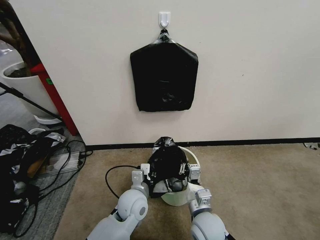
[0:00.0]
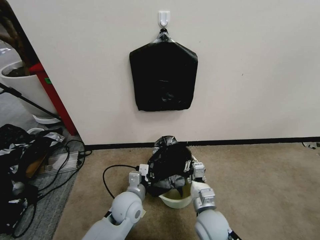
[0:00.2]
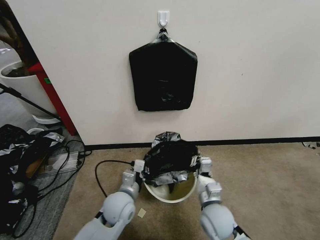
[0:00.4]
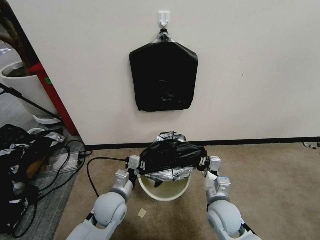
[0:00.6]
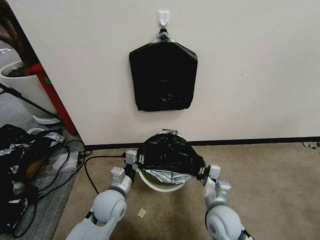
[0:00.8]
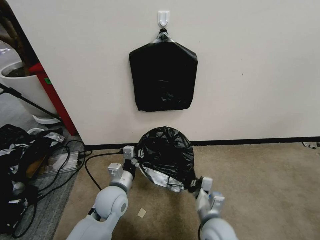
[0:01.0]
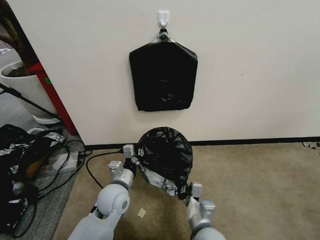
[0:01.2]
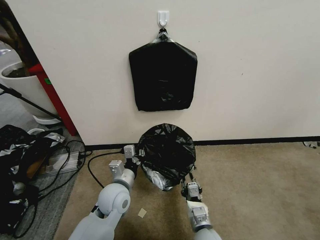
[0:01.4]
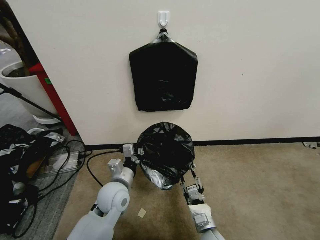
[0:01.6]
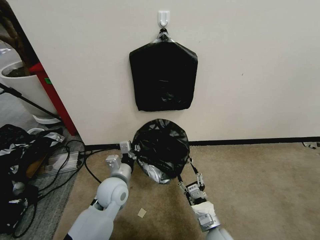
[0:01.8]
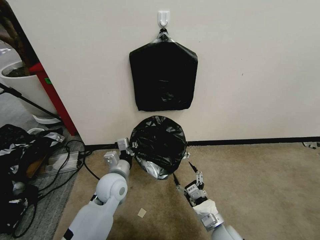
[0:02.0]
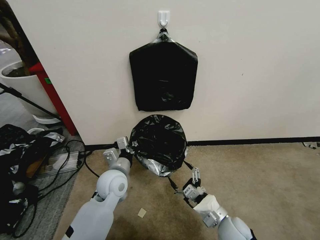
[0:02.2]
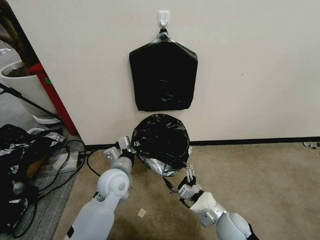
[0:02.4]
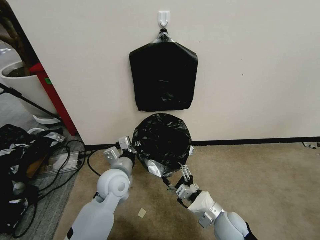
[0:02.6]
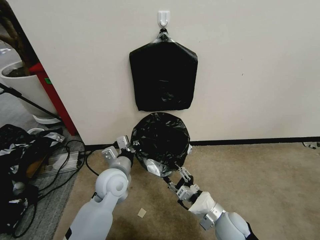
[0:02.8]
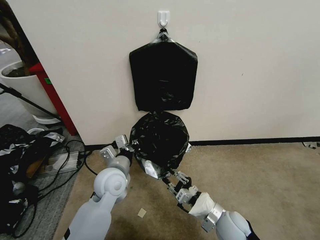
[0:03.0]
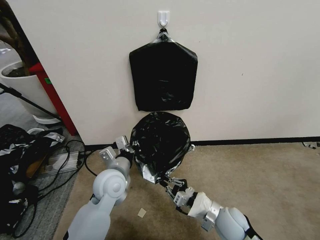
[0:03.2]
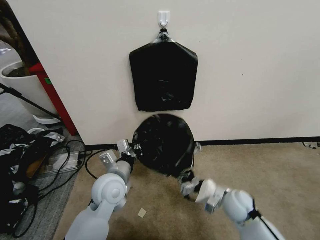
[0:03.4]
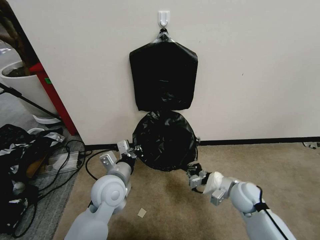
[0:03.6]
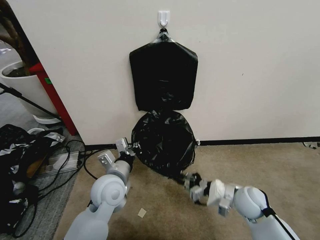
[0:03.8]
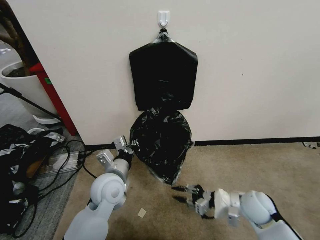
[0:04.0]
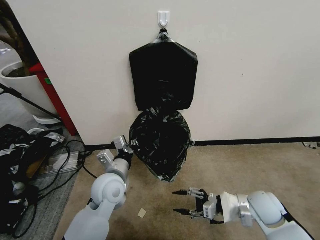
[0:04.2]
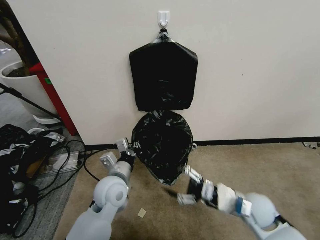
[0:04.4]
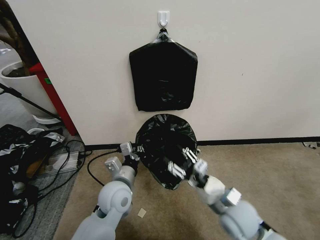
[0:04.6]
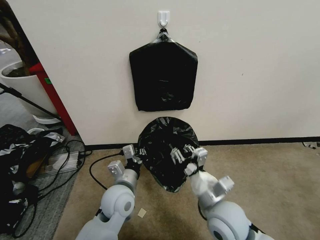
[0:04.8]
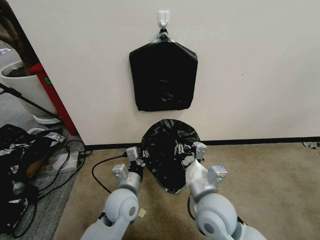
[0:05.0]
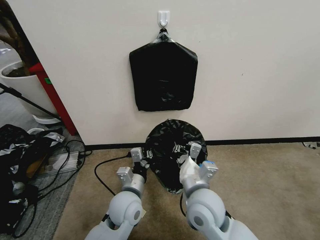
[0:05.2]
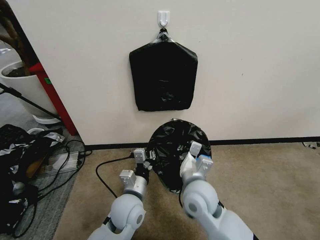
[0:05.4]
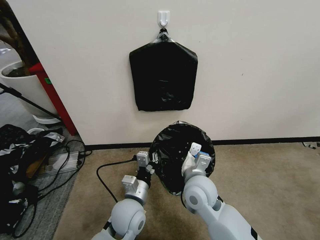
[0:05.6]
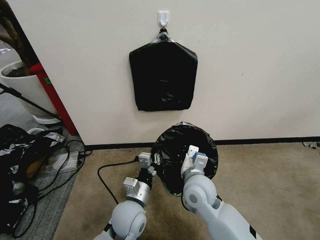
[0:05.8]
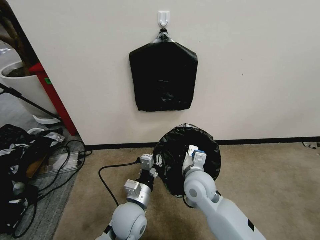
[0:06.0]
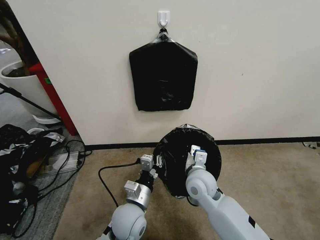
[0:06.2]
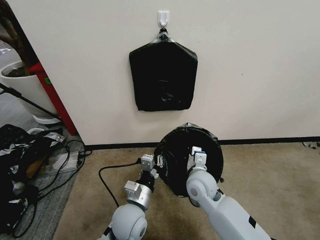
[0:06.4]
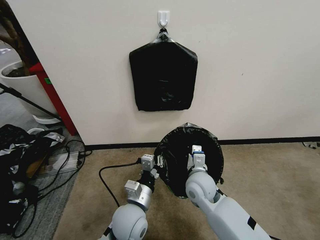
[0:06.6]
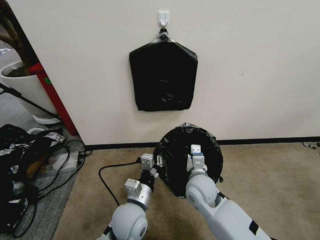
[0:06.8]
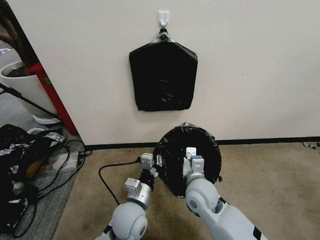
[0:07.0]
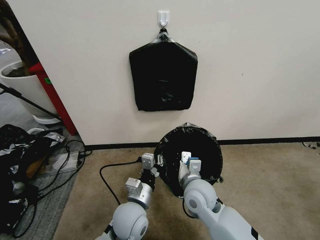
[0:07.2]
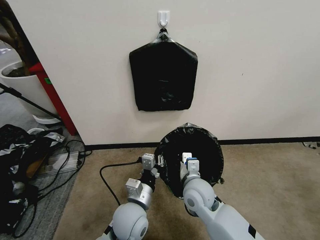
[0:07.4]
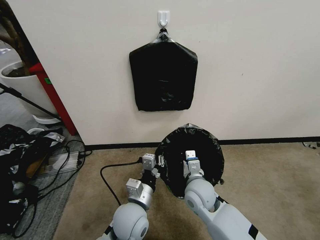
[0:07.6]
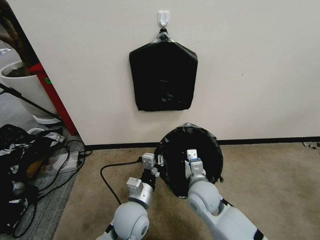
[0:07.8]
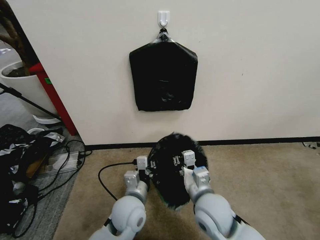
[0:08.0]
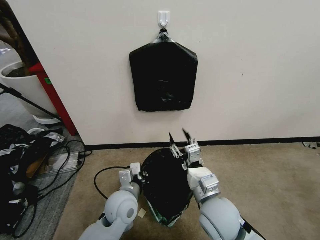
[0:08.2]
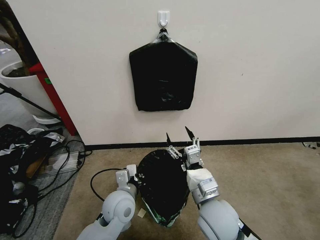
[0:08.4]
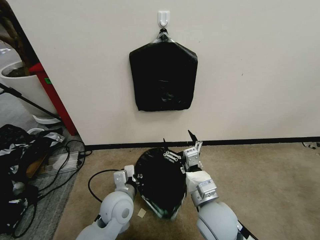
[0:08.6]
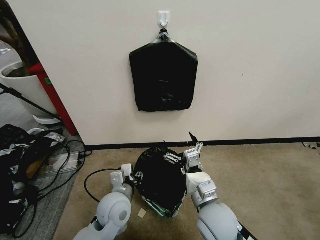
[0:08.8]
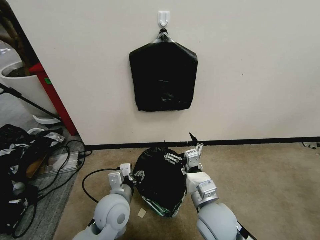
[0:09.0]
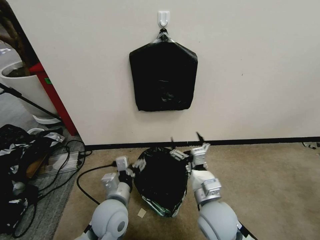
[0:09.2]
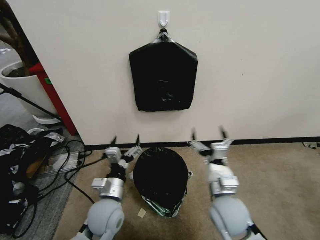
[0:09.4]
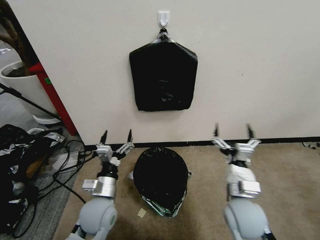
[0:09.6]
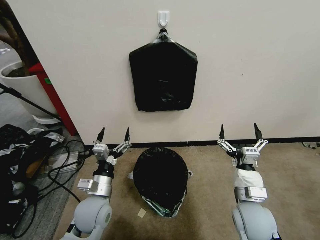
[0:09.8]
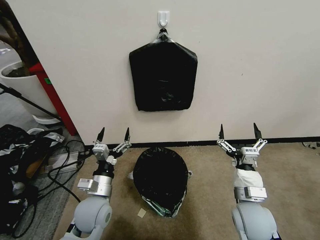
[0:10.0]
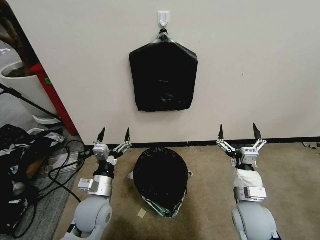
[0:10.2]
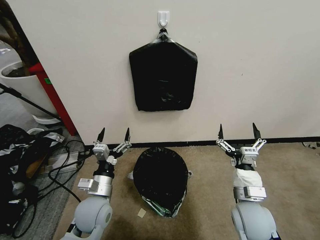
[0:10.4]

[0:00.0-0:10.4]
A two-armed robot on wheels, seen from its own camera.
Task of the whole recording: Place a trash bag onto the trash bin.
0:00.0 to 0:01.4: The right gripper shifts roughly 10 cm downward, while the left gripper moves to the left, some 5 cm.
0:01.4 to 0:03.0: The right gripper shifts some 10 cm to the right and upward, and opens, then closes again. The left gripper ends up approximately 5 cm from where it was.
0:03.0 to 0:04.4: The right gripper moves to the right and upward, some 10 cm, and closes and opens again.
0:04.4 to 0:06.0: The right gripper moves to the left, some 20 cm, and closes its fingers. The left gripper goes about 10 cm backward, to the right and downward.
0:07.4 to 0:09.0: The right gripper heads backward, covering roughly 10 cm, and opens up. Meanwhile the left gripper goes some 5 cm to the left, and opens its fingers.
0:09.0 to 0:10.4: The left gripper is displaced to the left by about 5 cm, and opens its fingers. Meanwhile the right gripper travels to the right by some 10 cm.
